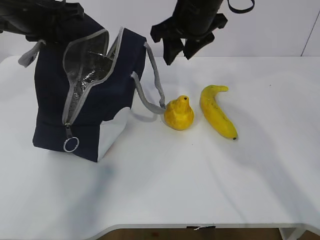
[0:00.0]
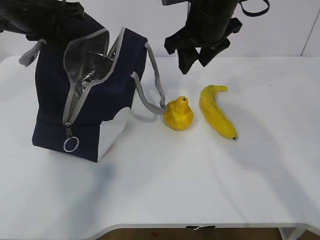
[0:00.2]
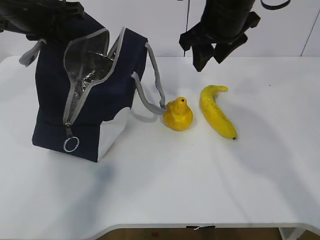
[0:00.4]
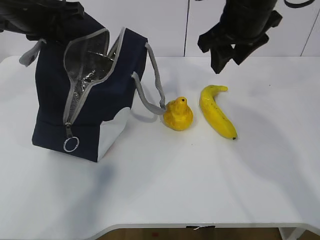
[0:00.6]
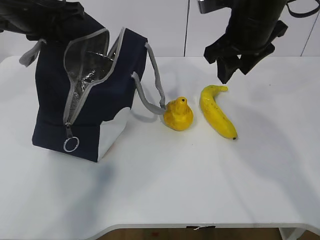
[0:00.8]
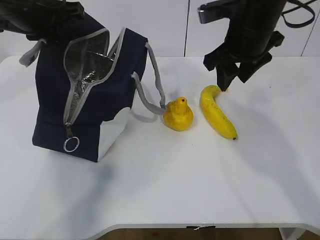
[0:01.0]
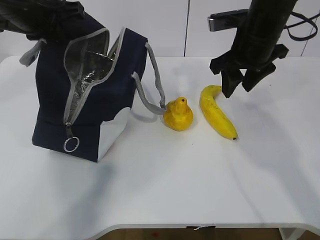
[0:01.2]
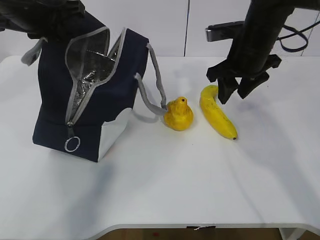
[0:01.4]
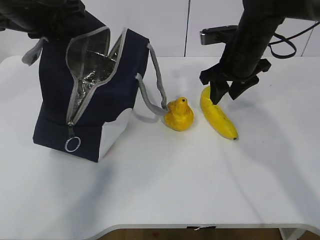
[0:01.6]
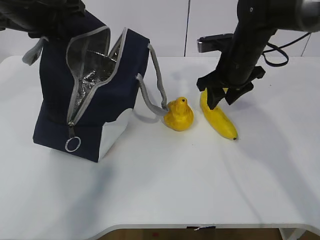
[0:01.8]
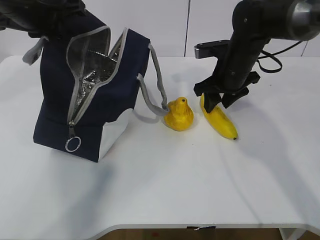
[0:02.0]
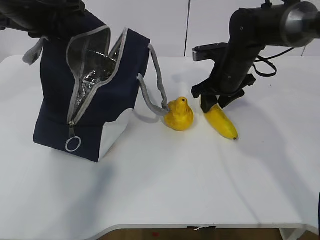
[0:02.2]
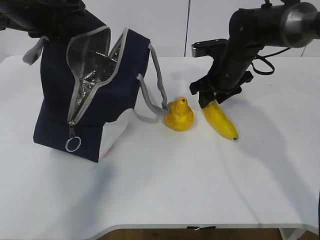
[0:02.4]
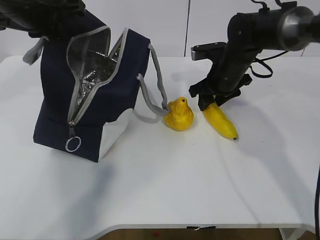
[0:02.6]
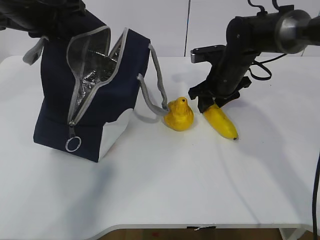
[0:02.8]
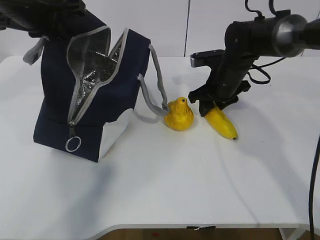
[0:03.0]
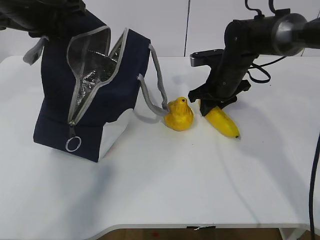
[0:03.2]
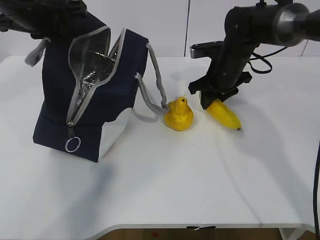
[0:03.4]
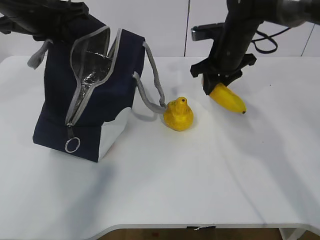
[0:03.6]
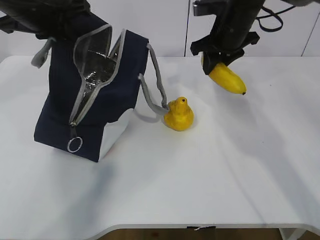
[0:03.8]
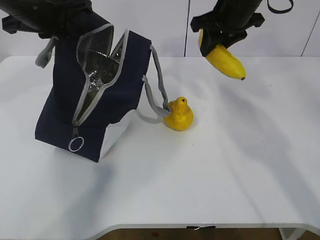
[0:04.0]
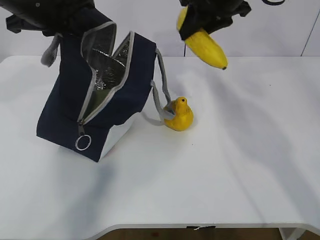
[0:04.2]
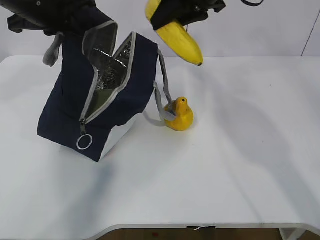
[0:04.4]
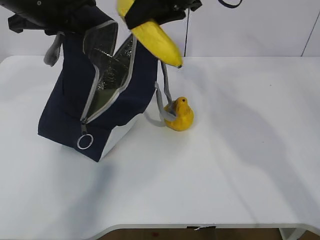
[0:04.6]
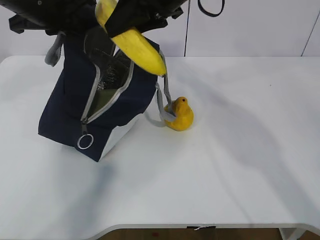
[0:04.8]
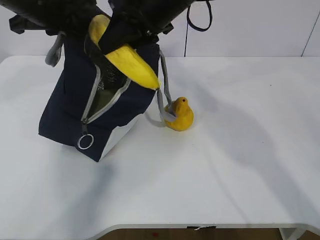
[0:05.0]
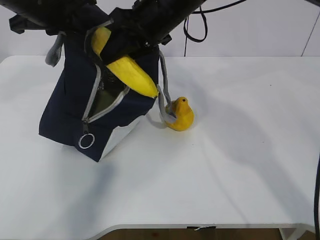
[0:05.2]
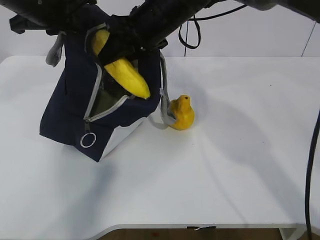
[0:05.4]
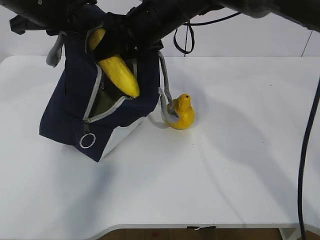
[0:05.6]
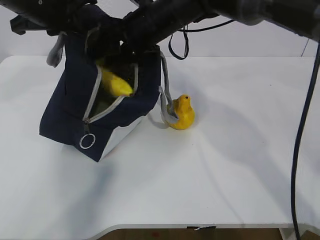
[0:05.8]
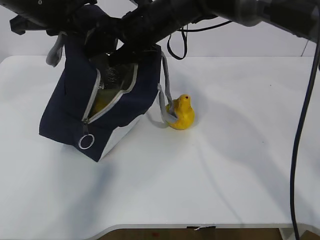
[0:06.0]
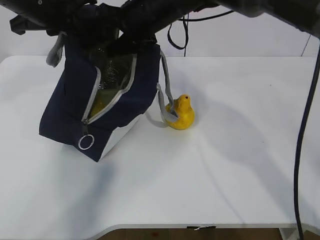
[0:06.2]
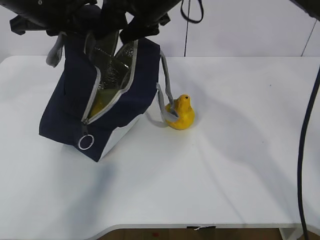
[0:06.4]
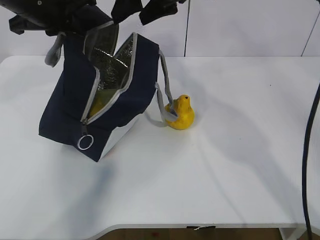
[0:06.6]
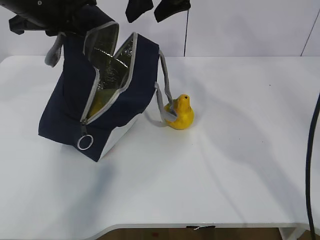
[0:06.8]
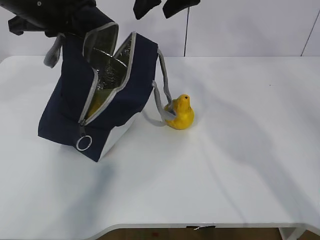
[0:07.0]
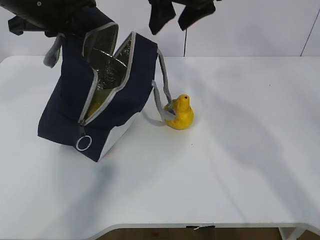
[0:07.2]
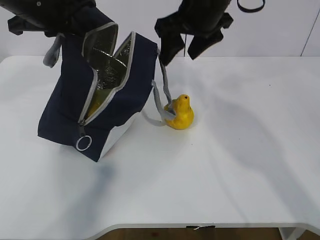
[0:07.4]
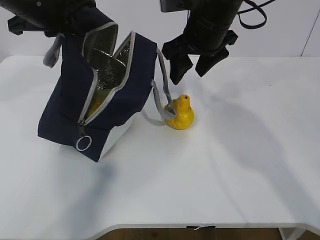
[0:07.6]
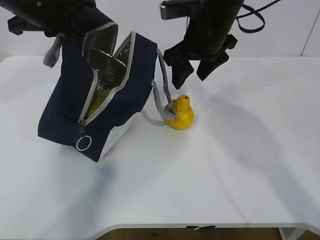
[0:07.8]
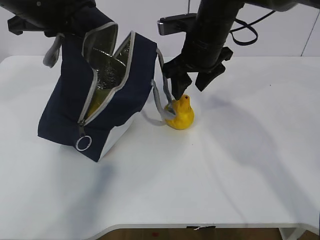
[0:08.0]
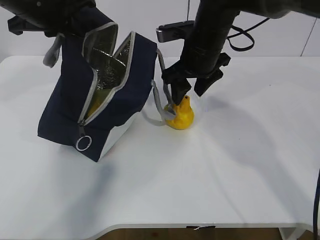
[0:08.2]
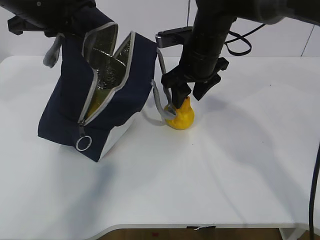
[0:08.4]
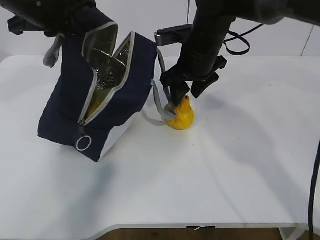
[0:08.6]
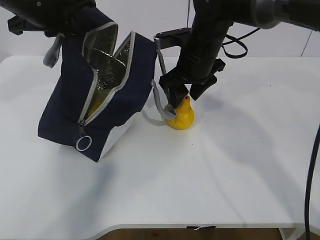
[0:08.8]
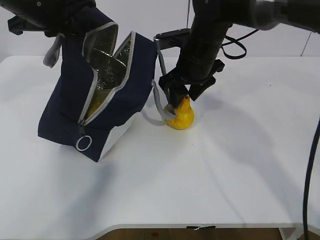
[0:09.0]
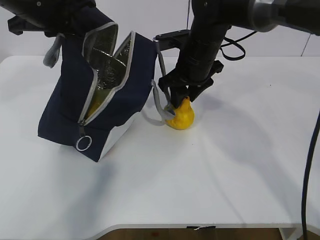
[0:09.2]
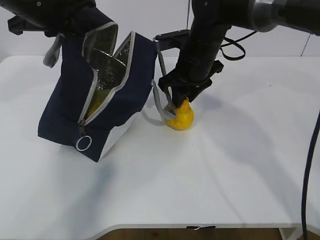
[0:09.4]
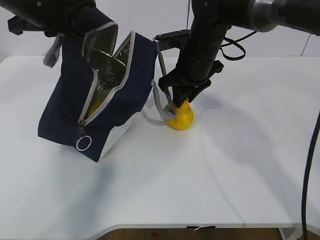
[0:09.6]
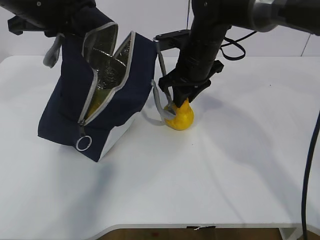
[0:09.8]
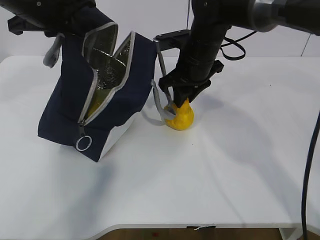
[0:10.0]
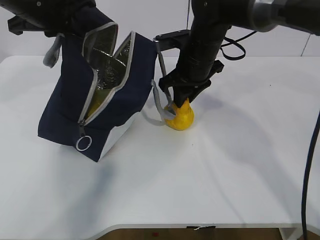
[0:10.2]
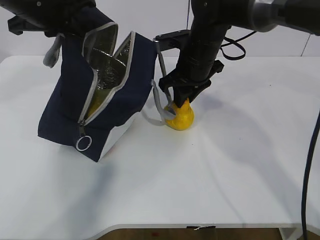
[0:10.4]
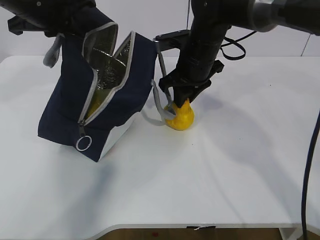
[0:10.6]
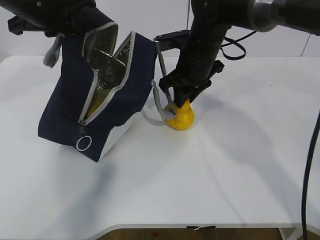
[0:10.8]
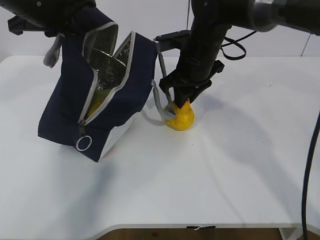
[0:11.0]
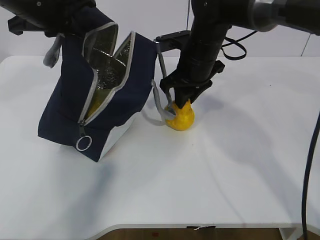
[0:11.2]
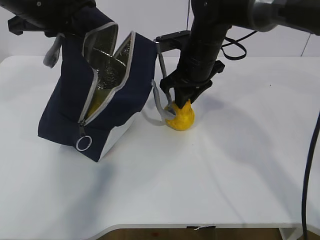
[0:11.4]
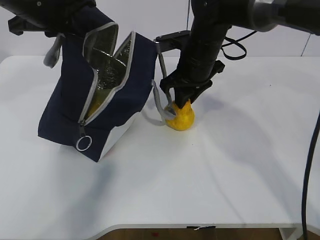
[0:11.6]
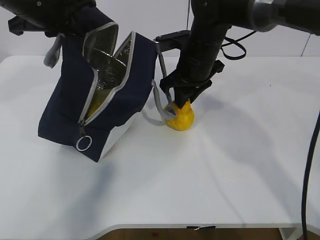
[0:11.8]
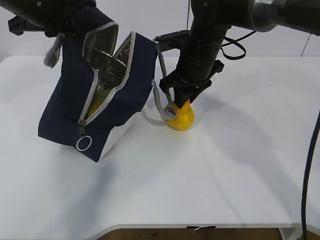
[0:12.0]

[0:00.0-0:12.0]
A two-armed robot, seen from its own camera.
Step, 0:00.0 to 0:03.0: Grasp the banana with the right gripper.
Step, 0:03.4 to 0:06.2: Place the banana into the package with the right gripper.
Step, 0:06.4 to 0:10.0: Grasp the pear with the right gripper.
0:00.0 to 0:01.6: The right gripper shifts some 10 cm to the right and downward.
0:01.6 to 0:03.0: The right gripper goes approximately 10 cm downward.
0:03.0 to 0:04.4: The right gripper heads upward, covering roughly 20 cm.
0:04.4 to 0:06.0: The right gripper heads to the left and downward, covering approximately 15 cm, and opens.
0:06.0 to 0:07.6: The right gripper goes about 10 cm to the right, and travels upward and back again, roughly 10 cm each way.
0:07.6 to 0:09.0: The right gripper goes about 5 cm downward.
0:09.0 to 0:10.4: The right gripper closes.
0:10.4 to 0:12.0: Neither gripper changes place.

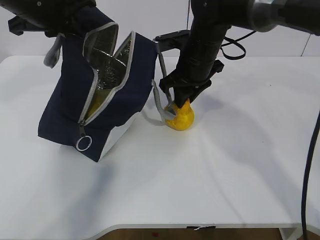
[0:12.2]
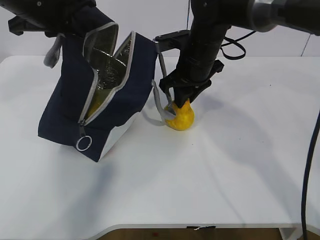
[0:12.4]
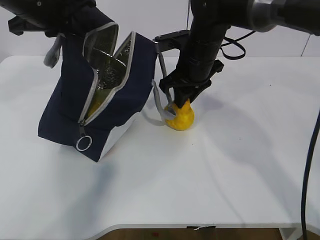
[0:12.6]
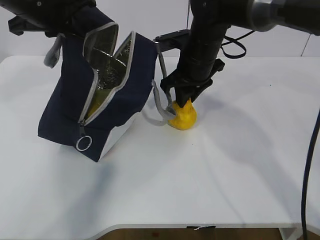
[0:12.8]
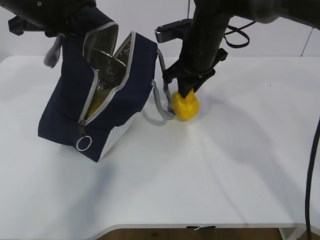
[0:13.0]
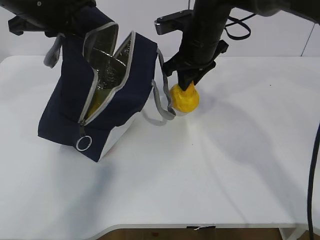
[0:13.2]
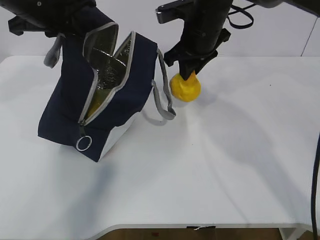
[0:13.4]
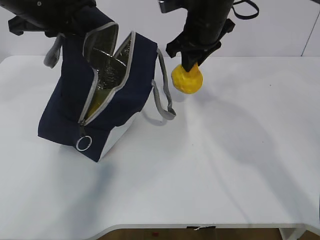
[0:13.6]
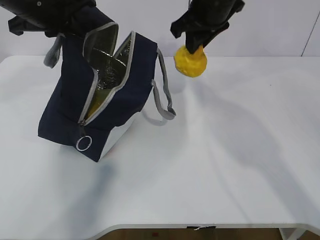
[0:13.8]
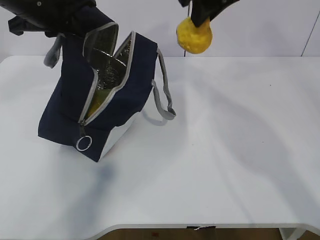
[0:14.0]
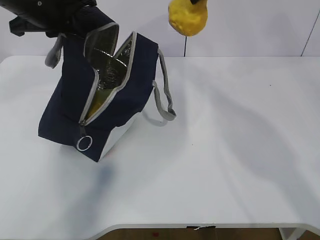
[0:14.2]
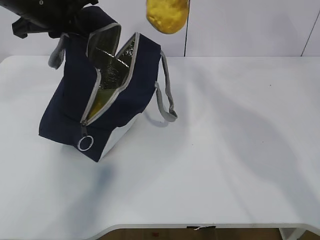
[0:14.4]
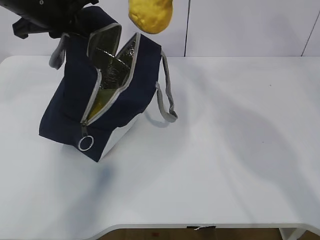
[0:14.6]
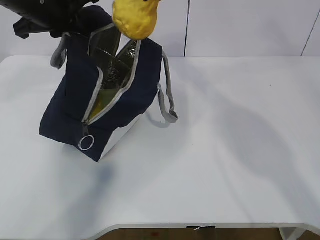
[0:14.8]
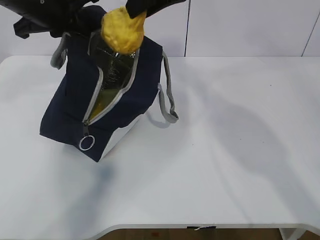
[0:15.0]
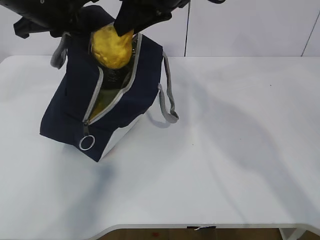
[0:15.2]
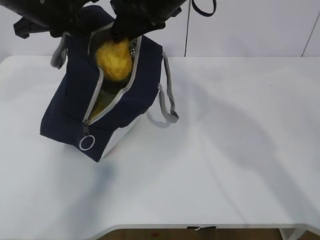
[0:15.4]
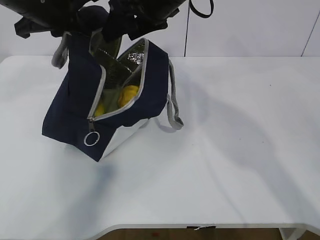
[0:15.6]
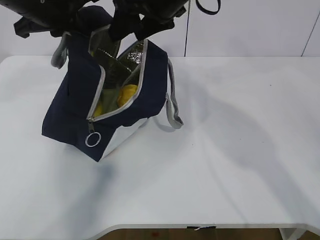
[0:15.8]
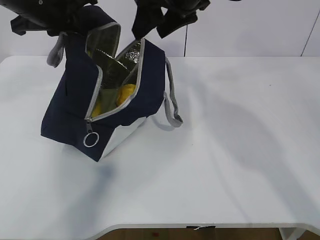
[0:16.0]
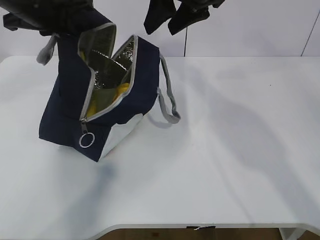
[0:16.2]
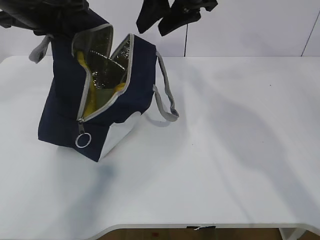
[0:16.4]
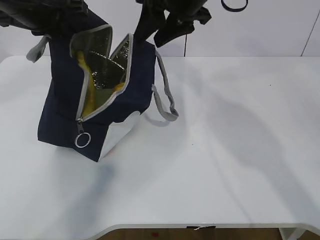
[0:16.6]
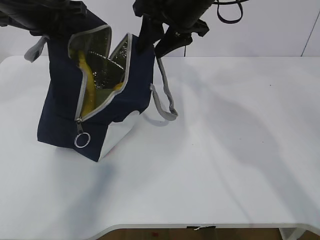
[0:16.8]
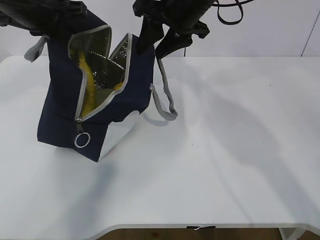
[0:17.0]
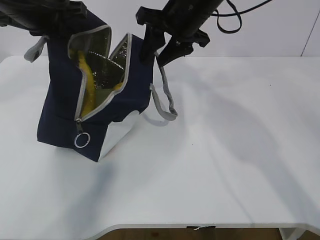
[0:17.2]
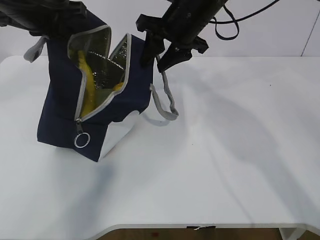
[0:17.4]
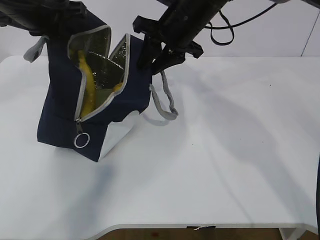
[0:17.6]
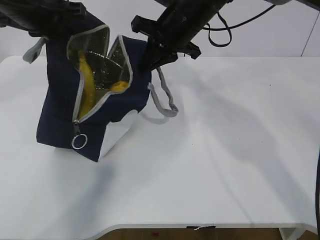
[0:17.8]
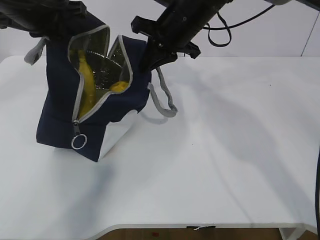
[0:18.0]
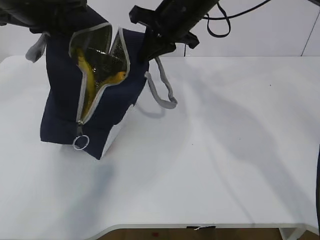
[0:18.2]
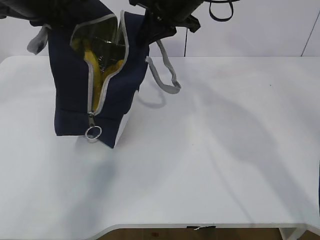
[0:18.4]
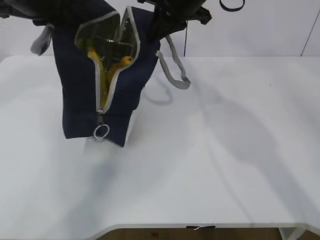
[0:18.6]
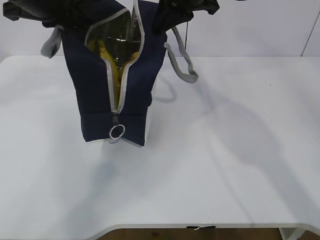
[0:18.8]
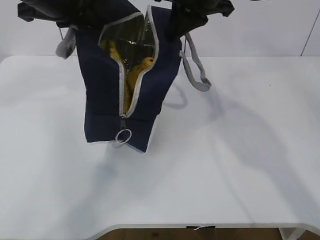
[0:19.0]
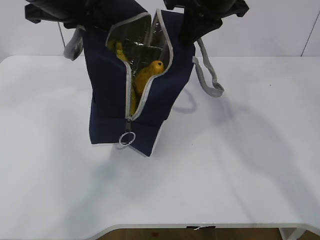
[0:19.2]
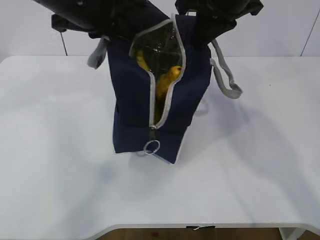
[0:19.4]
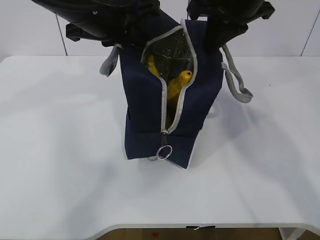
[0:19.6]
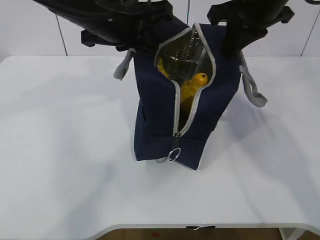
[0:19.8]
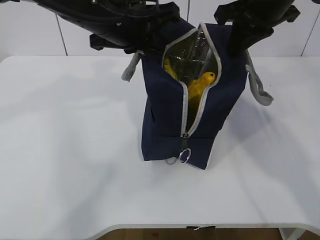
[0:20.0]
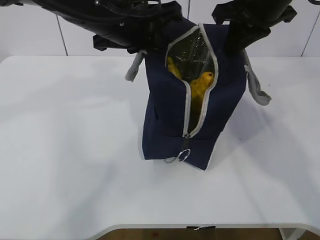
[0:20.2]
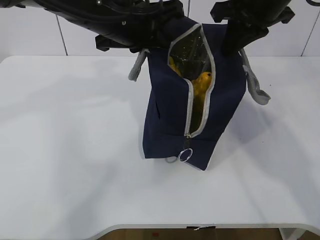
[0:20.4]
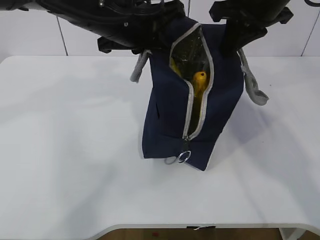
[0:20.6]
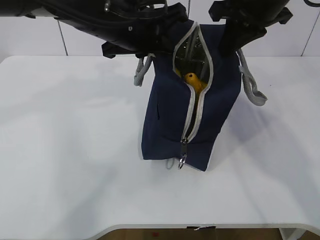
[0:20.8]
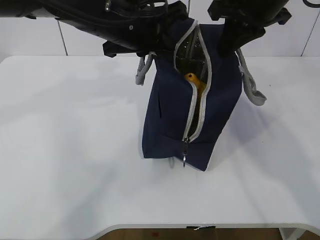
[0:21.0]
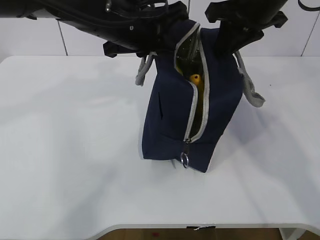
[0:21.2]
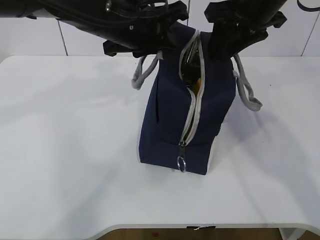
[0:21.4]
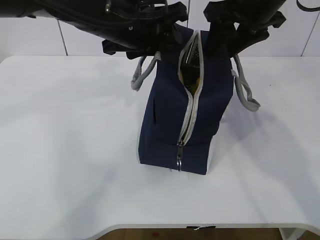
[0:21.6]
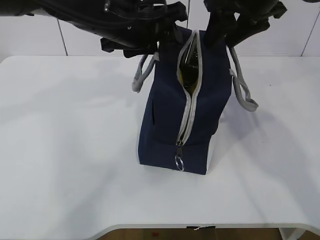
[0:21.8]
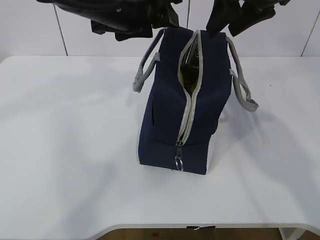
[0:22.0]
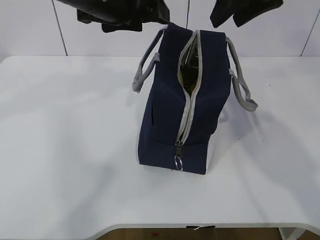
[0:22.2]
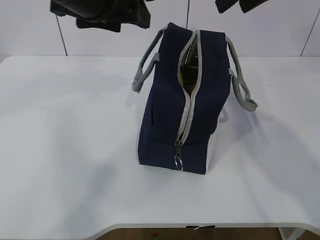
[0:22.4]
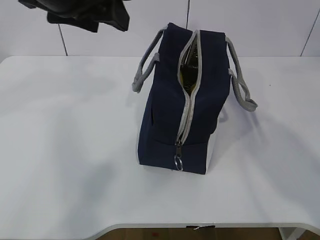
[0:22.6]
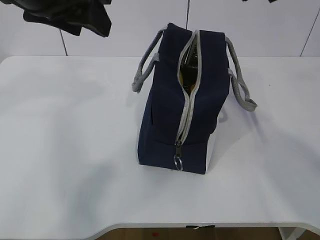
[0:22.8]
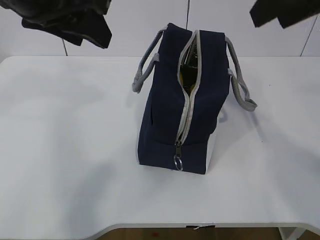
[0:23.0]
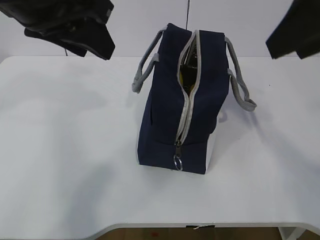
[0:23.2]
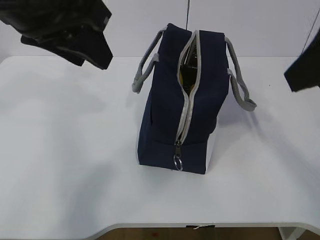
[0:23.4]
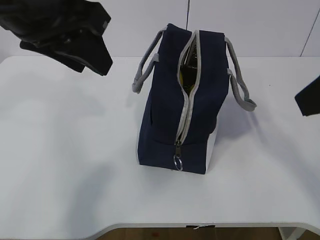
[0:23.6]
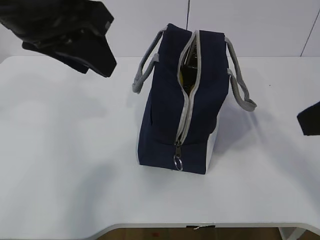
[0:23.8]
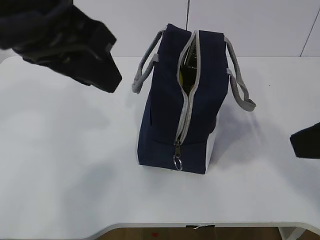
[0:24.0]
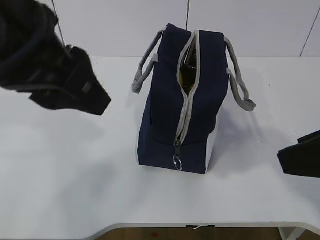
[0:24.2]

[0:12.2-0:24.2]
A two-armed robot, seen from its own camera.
Step, 0:12.2 to 0:15.4: Place the pear into the package with the right gripper.
0:12.2 to 0:13.8: The right gripper is displaced upward by some 10 cm.
0:13.8 to 0:15.2: The right gripper goes about 5 cm to the left.
0:15.2 to 0:16.6: The grippers make only small movements.
0:16.6 to 0:18.2: The right gripper ends up roughly 5 cm from where it was, and closes up.
0:18.2 to 0:19.8: The left gripper heads to the right, covering approximately 10 cm; the right gripper heads to the right and backward, covering roughly 10 cm.
0:19.8 to 0:21.2: The grippers make only small movements.
0:21.2 to 0:22.6: The right gripper goes about 10 cm upward and backward, and opens up. The left gripper heads upward, to the left and backward, covering approximately 10 cm, and opens.
0:22.6 to 0:24.2: The left gripper shifts about 10 cm backward; the right gripper moves backward and downward, approximately 20 cm.
